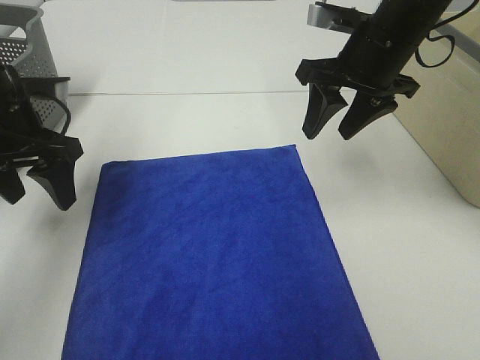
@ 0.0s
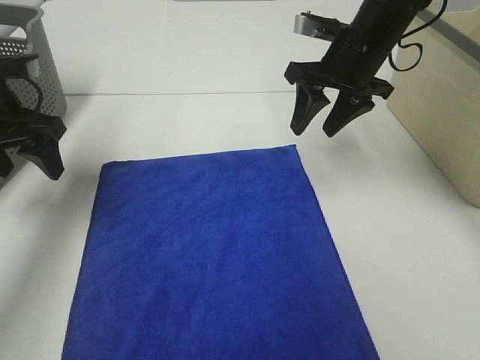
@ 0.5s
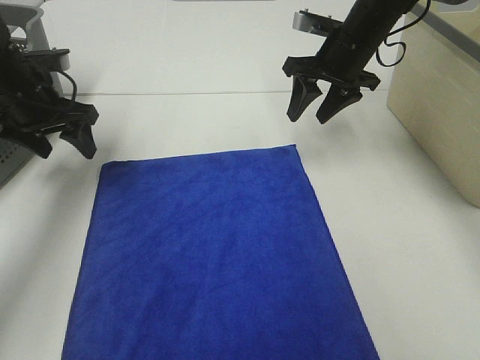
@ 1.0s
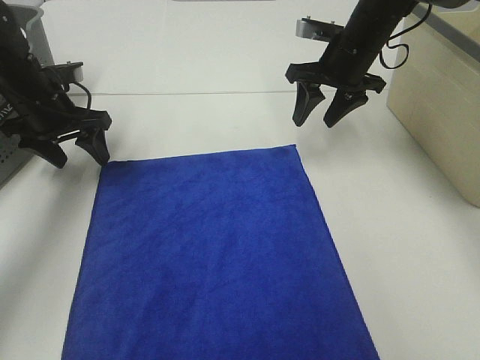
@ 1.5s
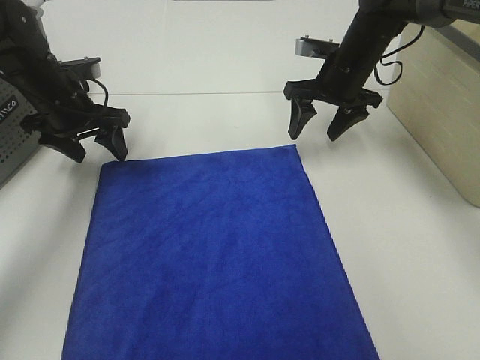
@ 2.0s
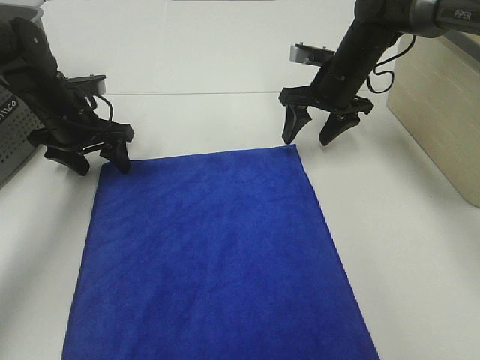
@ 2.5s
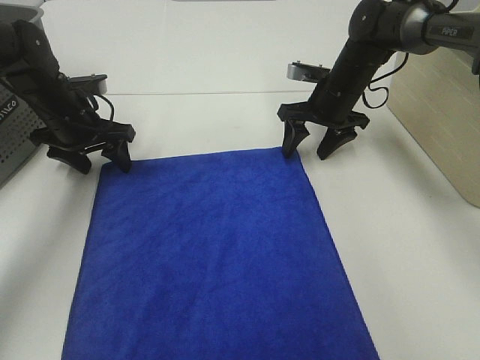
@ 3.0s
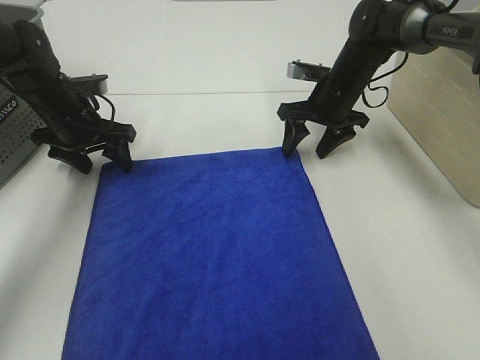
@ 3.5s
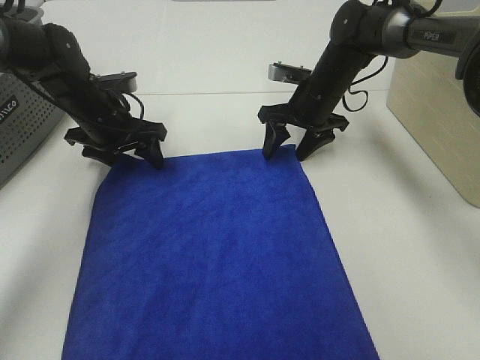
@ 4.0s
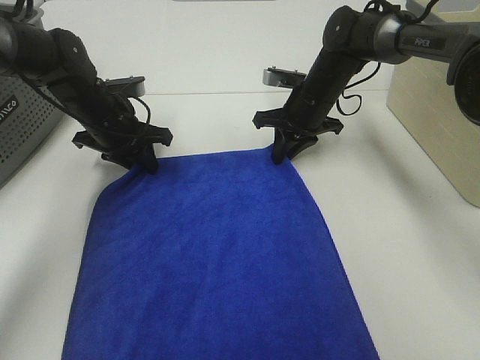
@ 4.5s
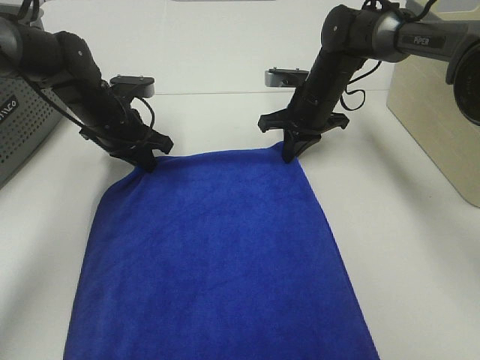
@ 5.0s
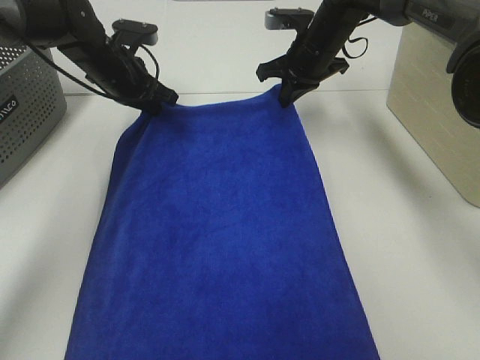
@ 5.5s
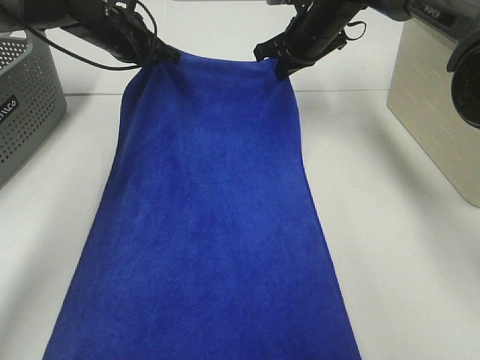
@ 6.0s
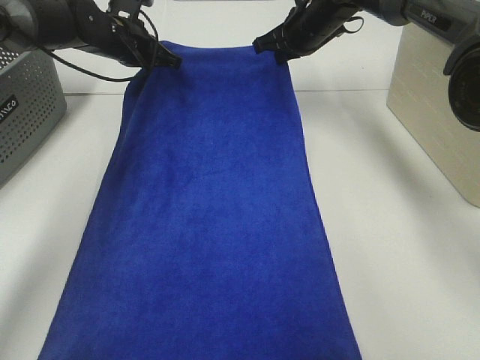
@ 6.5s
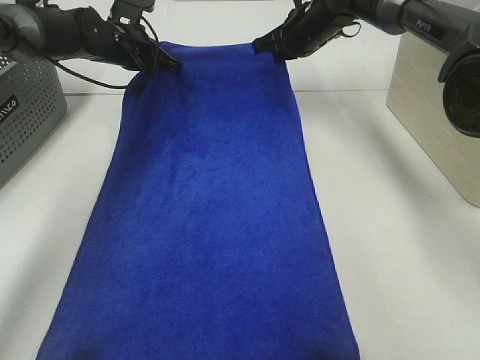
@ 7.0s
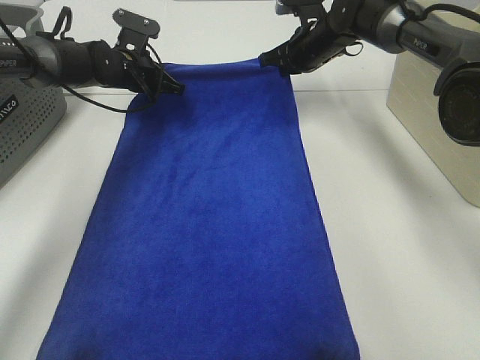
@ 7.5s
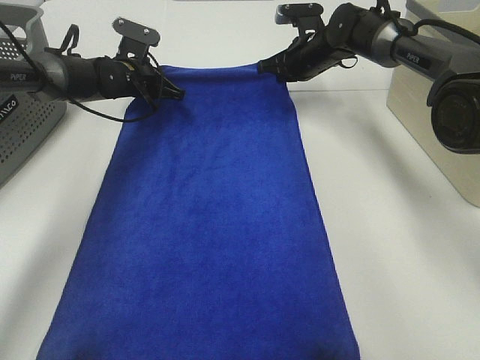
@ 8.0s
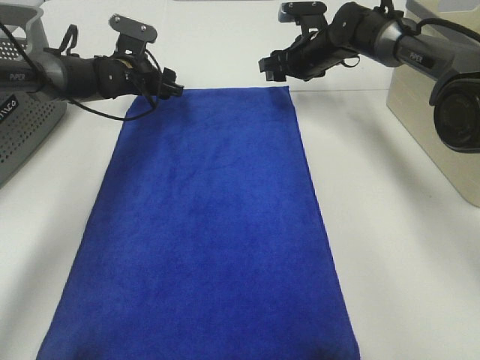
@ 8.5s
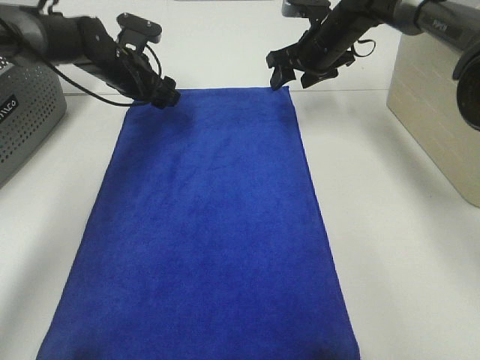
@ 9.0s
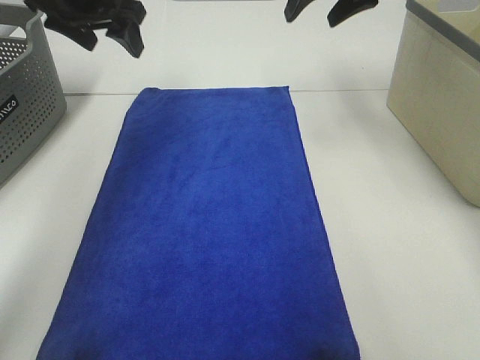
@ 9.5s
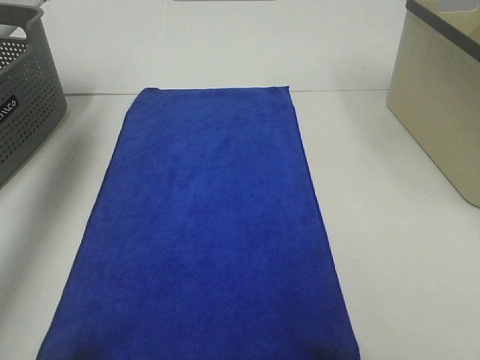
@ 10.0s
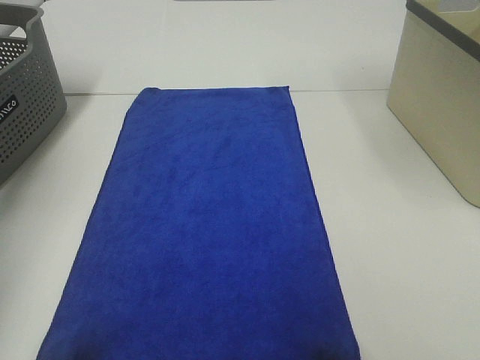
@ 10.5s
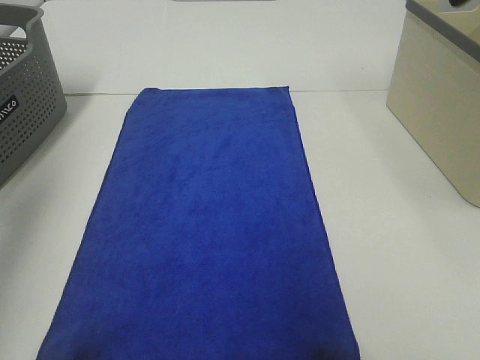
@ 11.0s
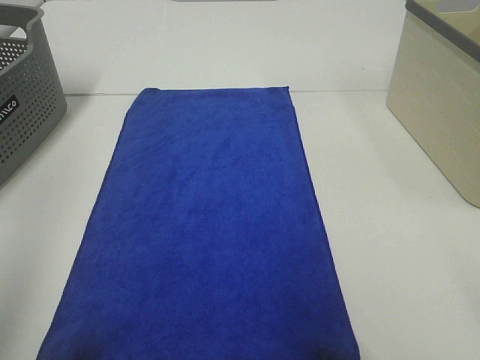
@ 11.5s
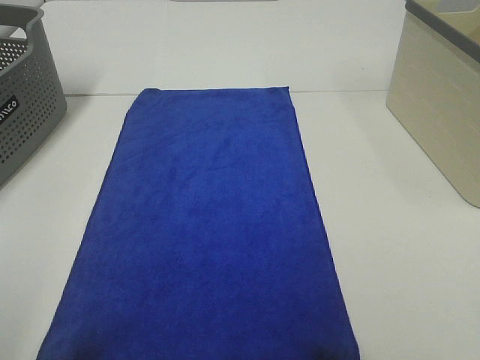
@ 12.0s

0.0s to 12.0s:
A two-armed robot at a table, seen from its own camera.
Task of the whole recording: Remove the towel and place it.
0.0s to 2.0s: The grippers both shift forward and downward by some 15 cm.
2.0s to 4.0s: The right gripper shifts by about 5 cm; the left gripper shifts by approximately 5 cm.
4.0s to 6.0s: The two grippers go about 10 cm upward and forward. The left gripper closes, while the right gripper closes.
6.0s to 8.0s: The left gripper moves downward, about 10 cm. Meanwhile the right gripper moves downward, some 5 cm.
8.0s to 10.0s: The right gripper goes approximately 30 cm upward and backward, and opens its fingers; the left gripper shifts some 30 cm upward, to the left and backward, and opens.
10.0s to 12.0s: Both grippers travel together backward, some 40 cm.

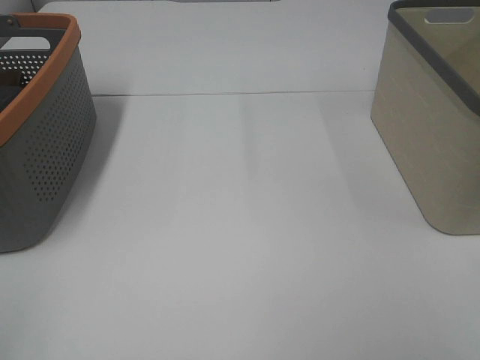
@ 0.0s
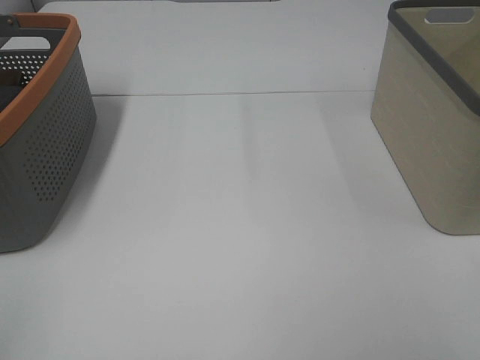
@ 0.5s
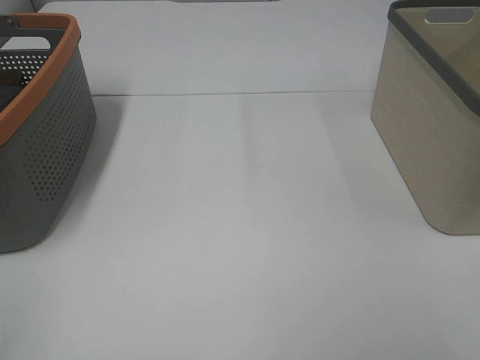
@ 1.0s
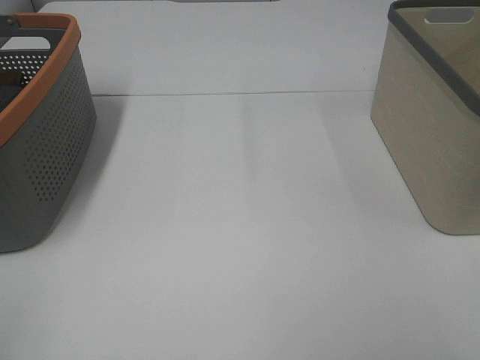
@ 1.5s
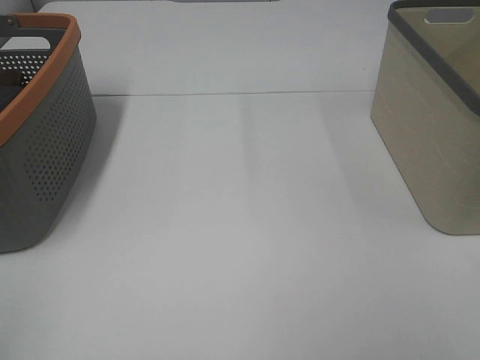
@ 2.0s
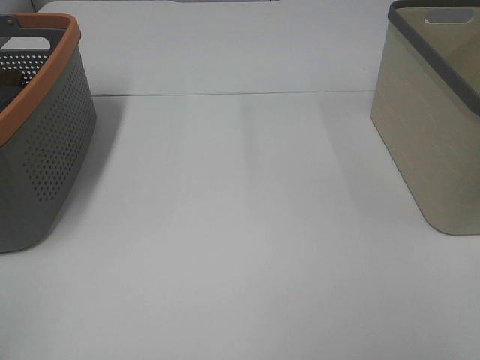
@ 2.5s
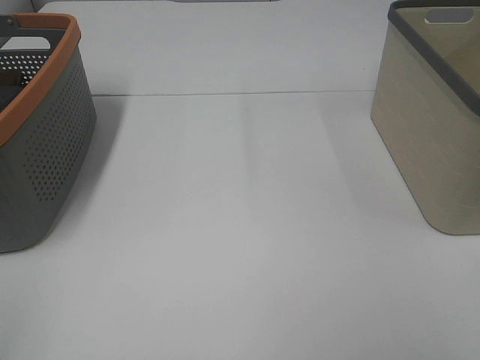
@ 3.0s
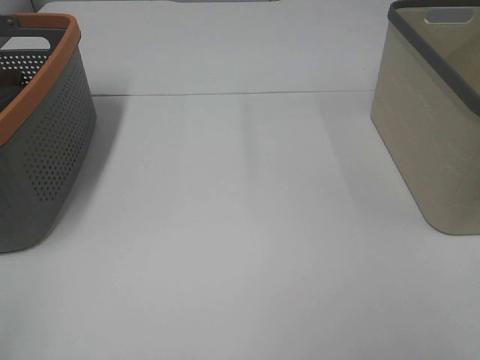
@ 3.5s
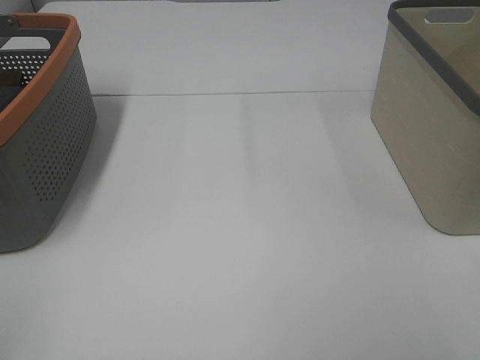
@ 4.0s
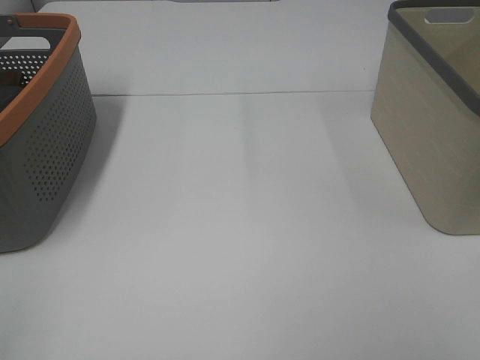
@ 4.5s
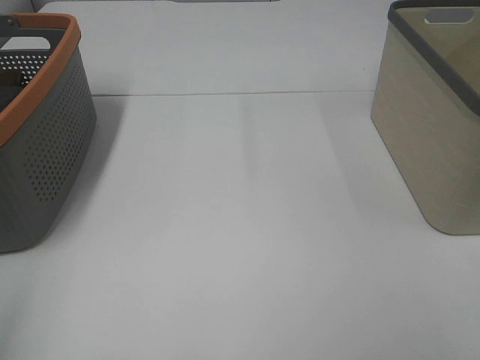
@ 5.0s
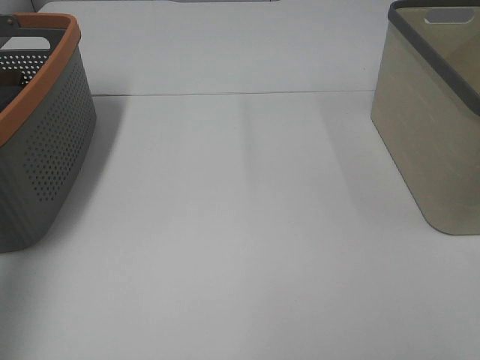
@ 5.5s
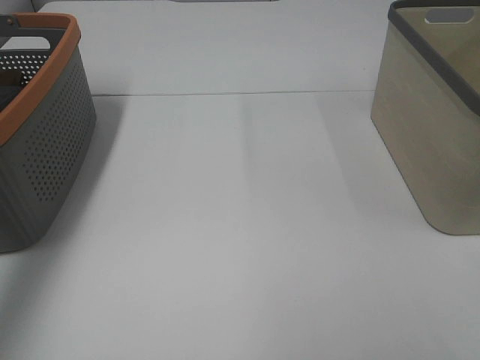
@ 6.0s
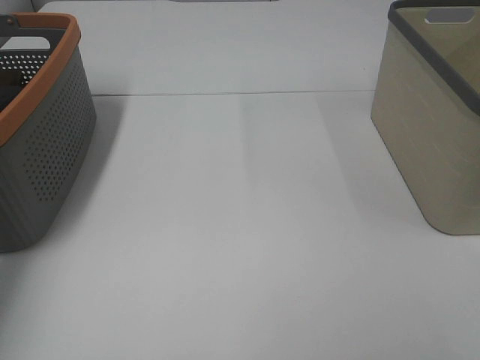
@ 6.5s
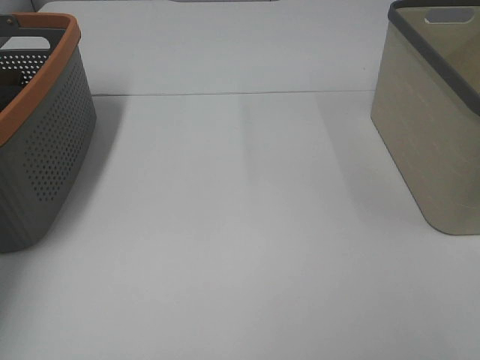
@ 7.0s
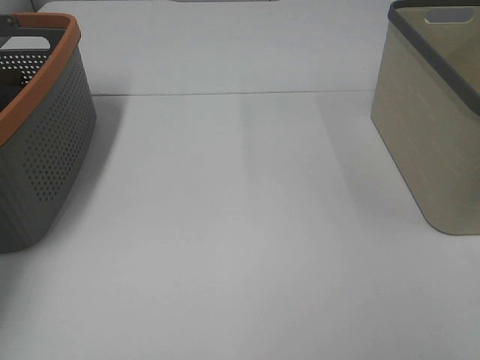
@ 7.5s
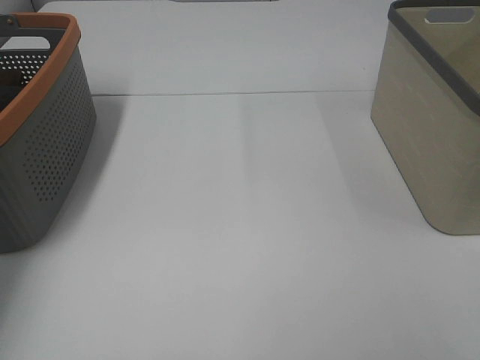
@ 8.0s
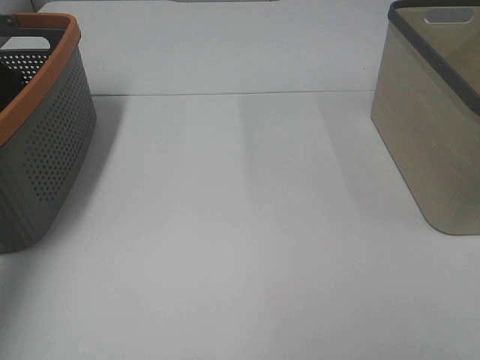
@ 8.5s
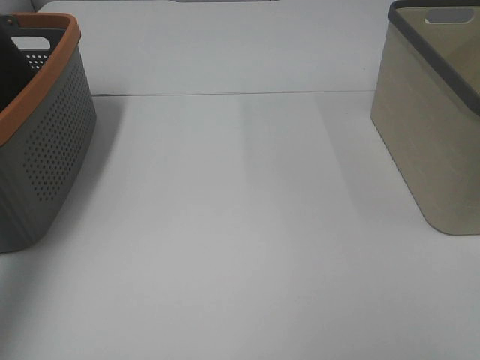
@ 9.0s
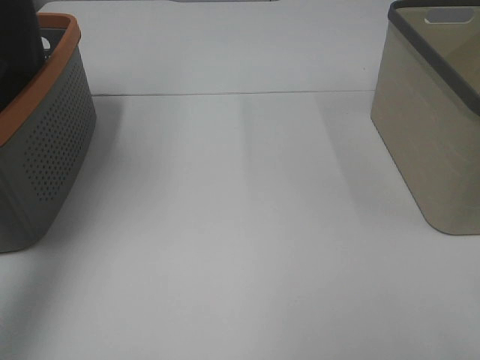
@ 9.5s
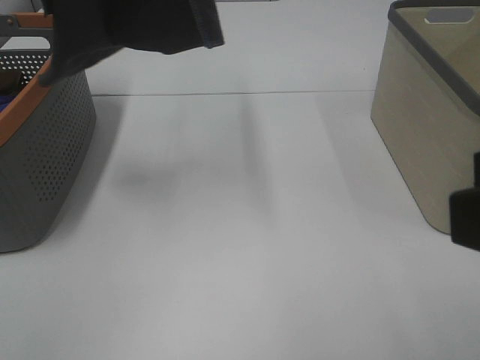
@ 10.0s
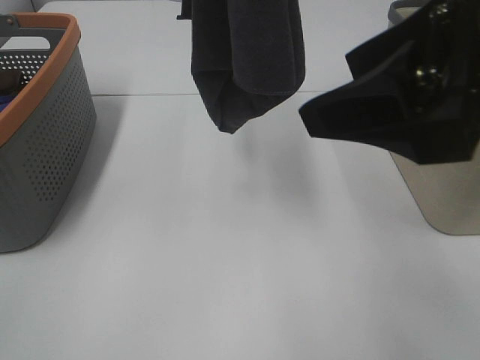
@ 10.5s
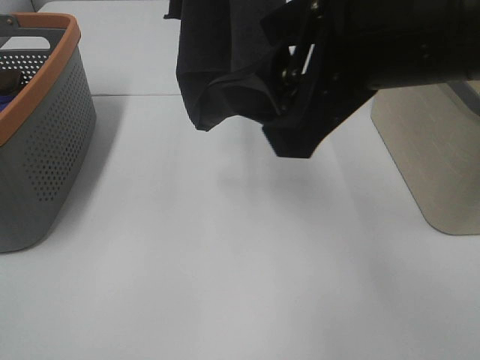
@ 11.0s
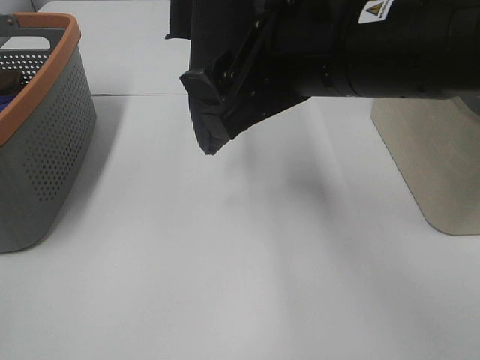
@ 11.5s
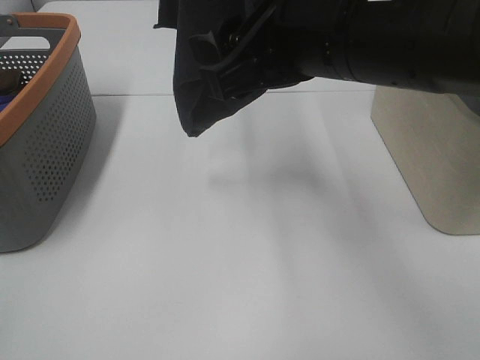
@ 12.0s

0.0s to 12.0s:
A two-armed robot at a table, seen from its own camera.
Task of the whole recording: Remove the towel and place it.
0.0s to 4.0s: Both grippers stay put.
4.0s to 6.0s: The left gripper moves forward, about 35 cm.
6.0s to 8.0s: The left gripper heads forward and downward, covering roughly 15 cm, and closes its fingers.
8.0s to 10.0s: The right gripper goes about 10 cm forward and to the left; the left gripper heads upward, to the right and backward, covering about 40 cm.
10.0s to 12.0s: The right gripper moves forward and to the left, roughly 20 cm; the left gripper heads to the right, covering approximately 10 cm.

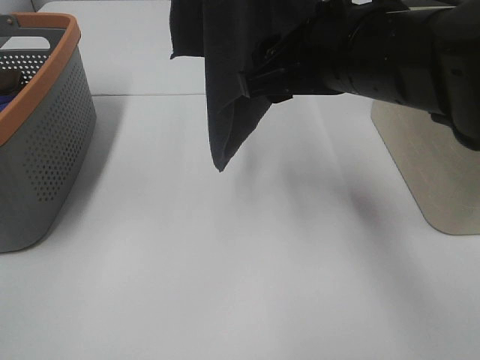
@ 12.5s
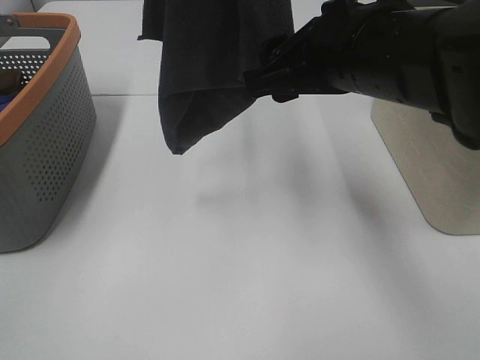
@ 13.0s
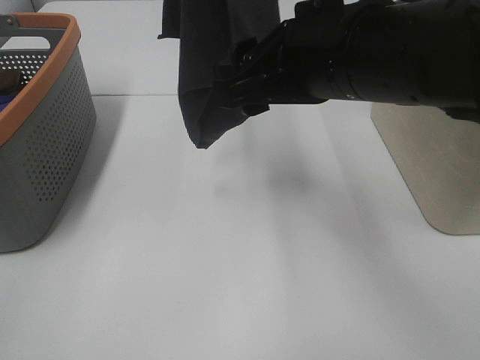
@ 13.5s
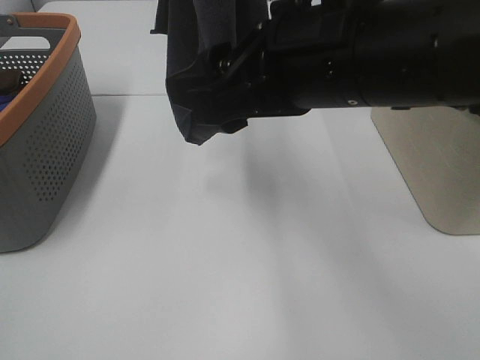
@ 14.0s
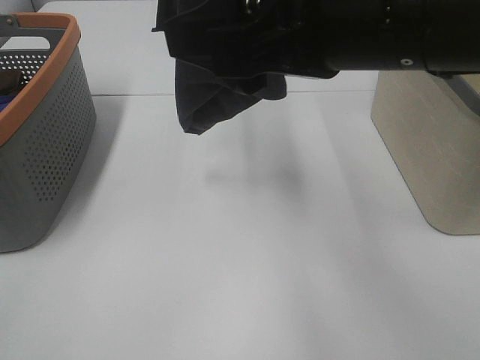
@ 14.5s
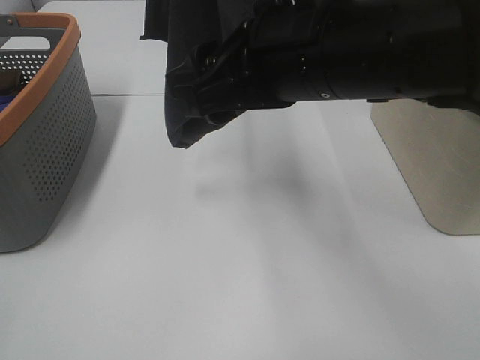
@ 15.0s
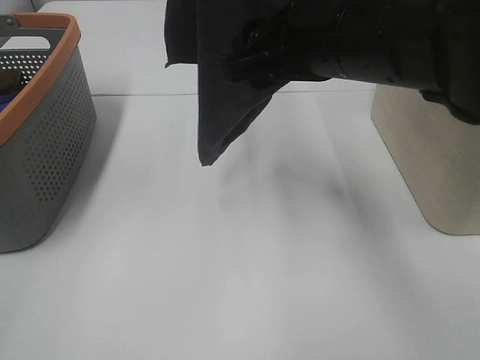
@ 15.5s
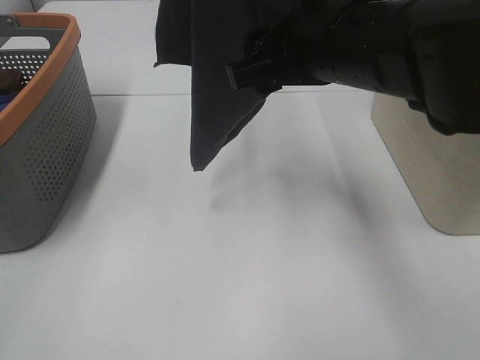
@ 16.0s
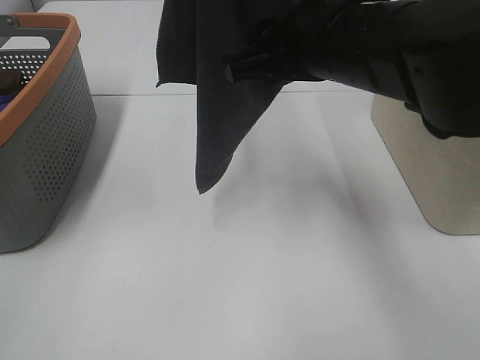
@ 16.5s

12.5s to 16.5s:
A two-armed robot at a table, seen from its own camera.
Task of the whole recording: Remove the towel and place it.
12.5s to 14.5s: The right gripper heads backward and upward, covering roughly 10 cm.
14.5s to 16.5s: The right gripper goes approximately 10 cm forward and downward.
